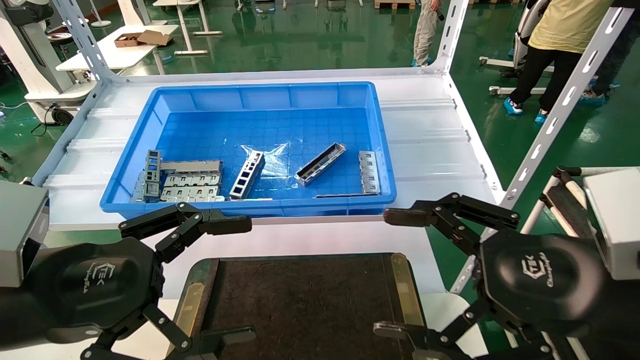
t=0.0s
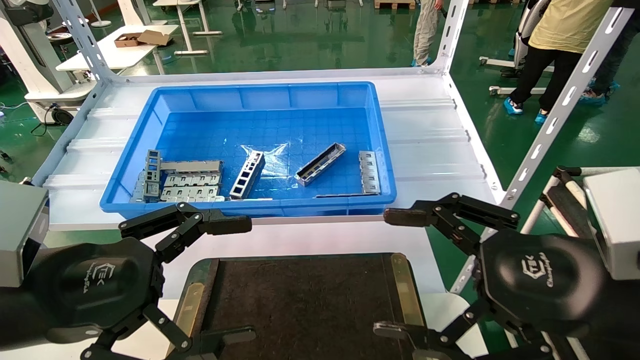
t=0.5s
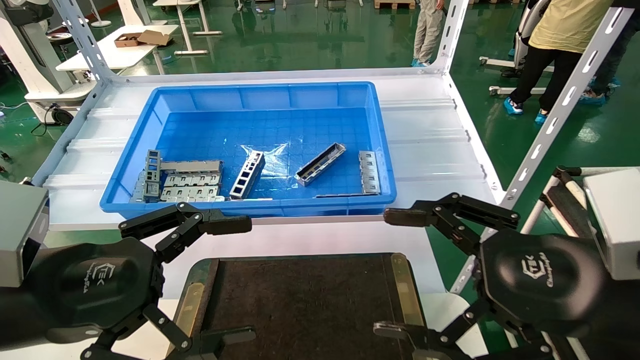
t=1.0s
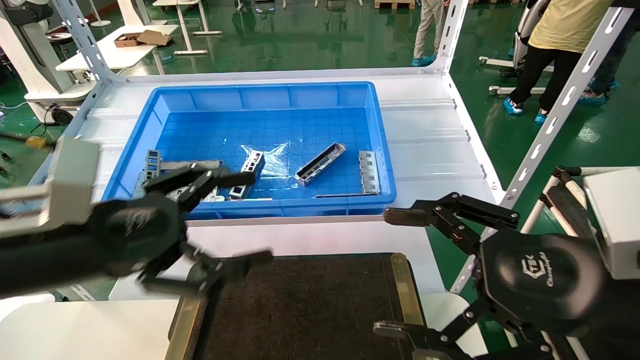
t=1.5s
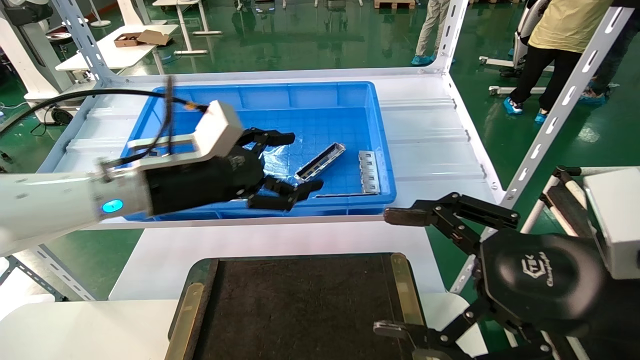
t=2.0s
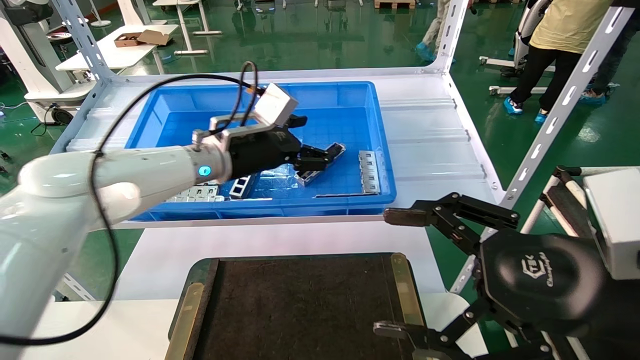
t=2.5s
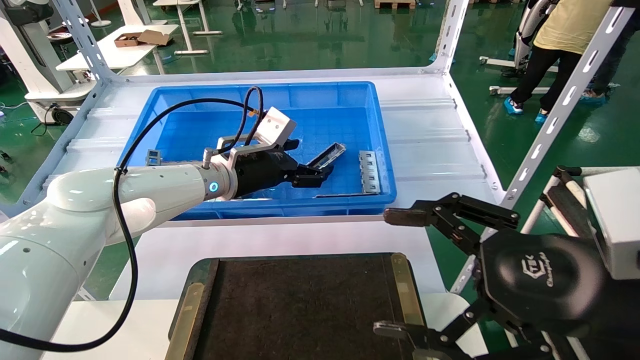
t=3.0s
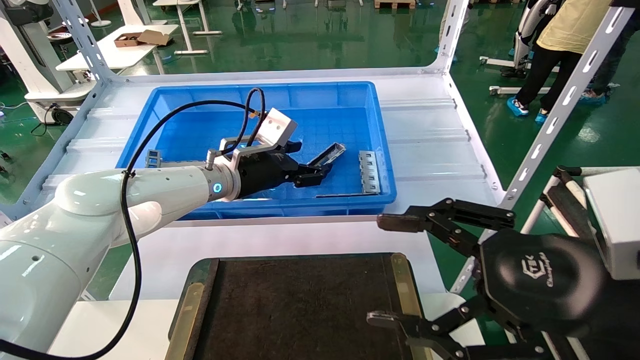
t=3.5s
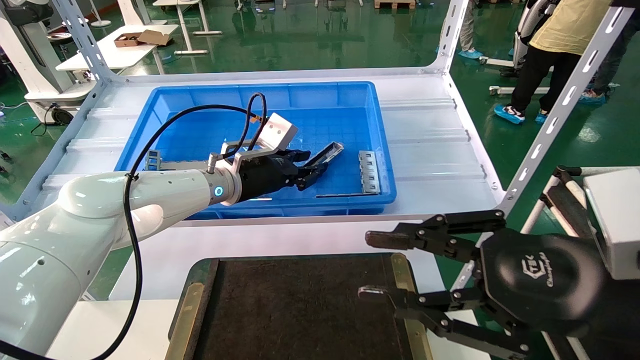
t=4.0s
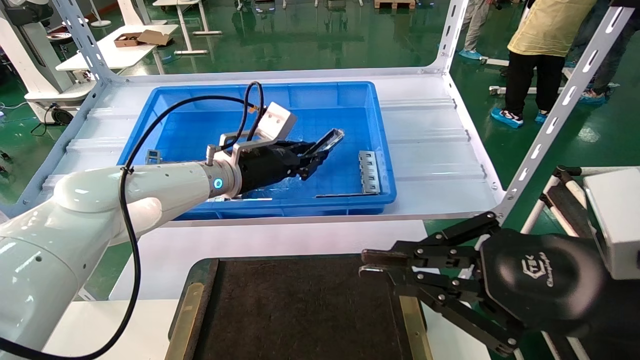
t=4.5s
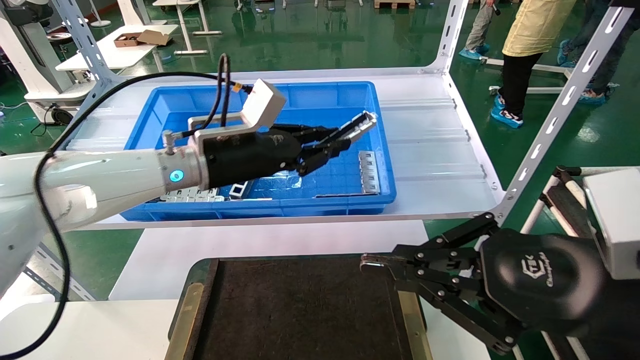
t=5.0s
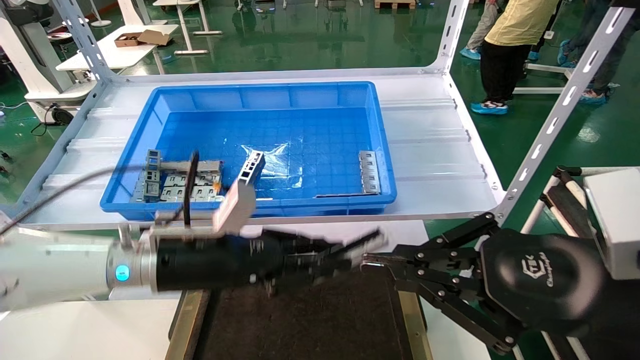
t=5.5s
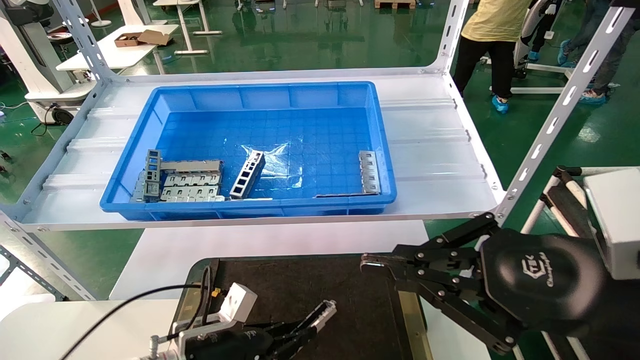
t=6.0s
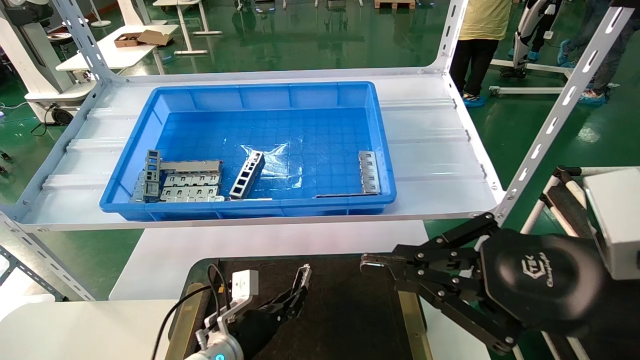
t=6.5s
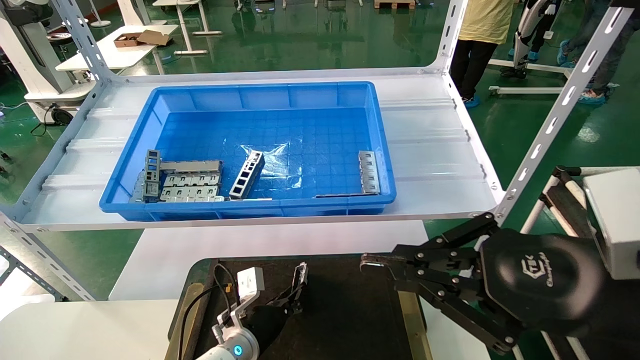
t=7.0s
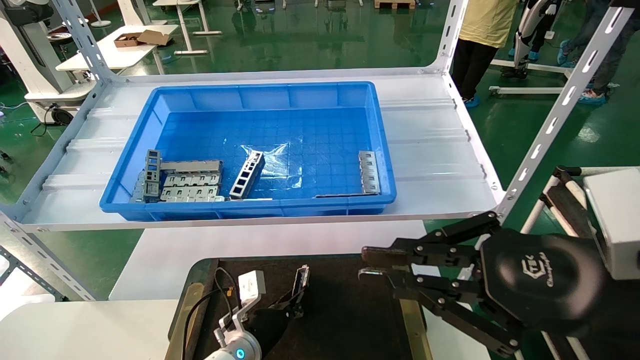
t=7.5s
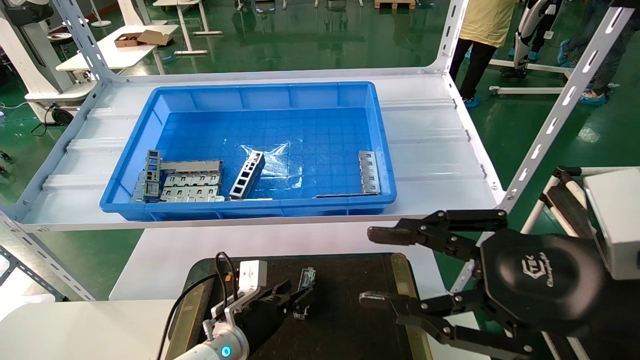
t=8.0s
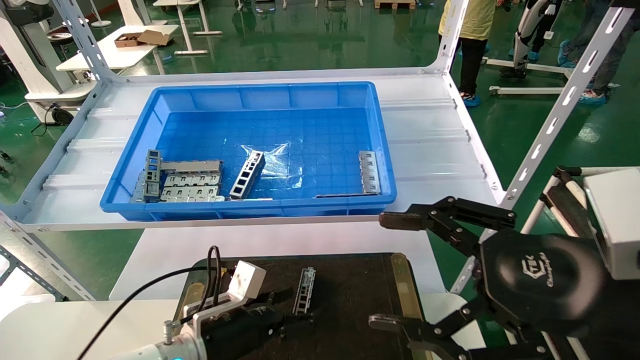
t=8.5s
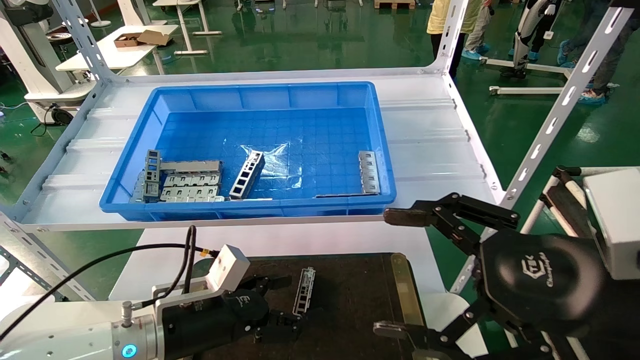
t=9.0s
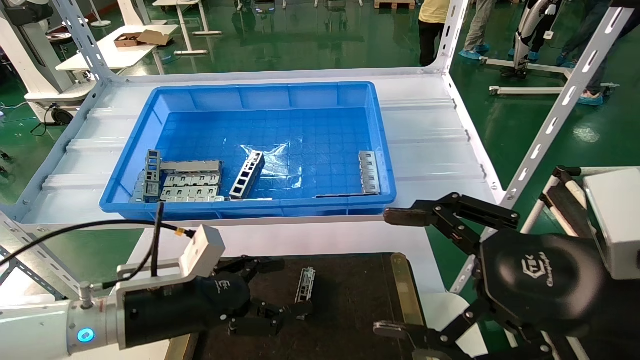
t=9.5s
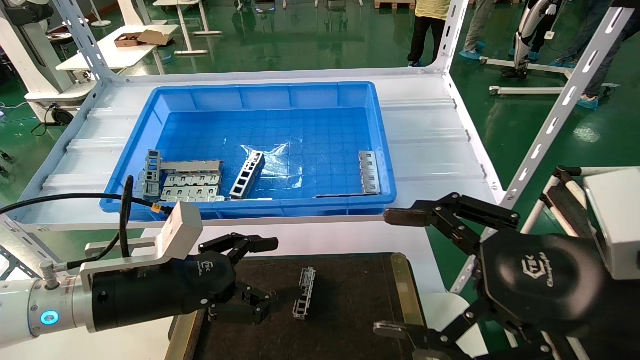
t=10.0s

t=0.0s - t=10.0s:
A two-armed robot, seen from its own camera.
Task of the whole recording: Grasp the part with one hand and place it on the black container.
Step, t=1.5s - t=4.0s: Pick up the front USB bracket from the feeding area.
Step, t=4.5s - t=7.5s: Place the front USB bracket into the box.
t=0.0s - t=2.0s: The left gripper travels forward by about 20 cm.
t=2.0s - t=4.0s: The left gripper heads forward and to the right, covering approximately 10 cm, and closes, while the right gripper closes its fingers.
t=4.0s - t=6.0s: The left gripper travels downward and backward by about 25 cm, and closes up; the right gripper closes up.
t=6.0s - t=8.0s: The left gripper opens its fingers.
t=8.0s - t=10.0s: The right gripper opens up. The left gripper heads upward, backward and to the left, covering about 25 cm, and opens its fingers.

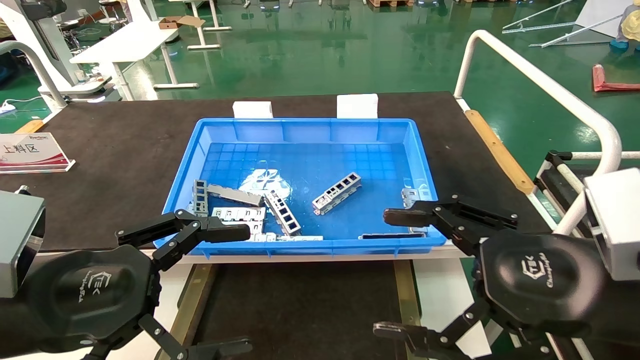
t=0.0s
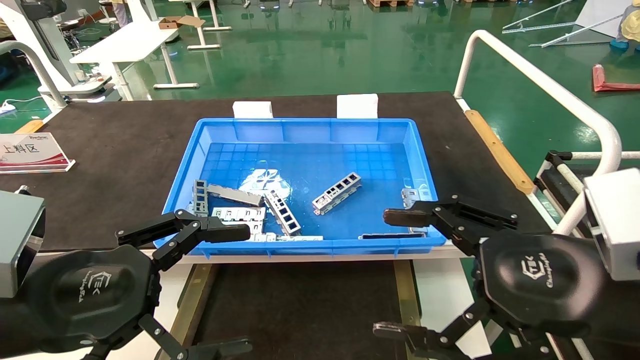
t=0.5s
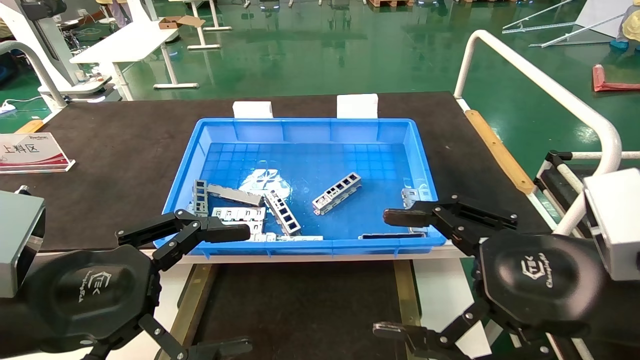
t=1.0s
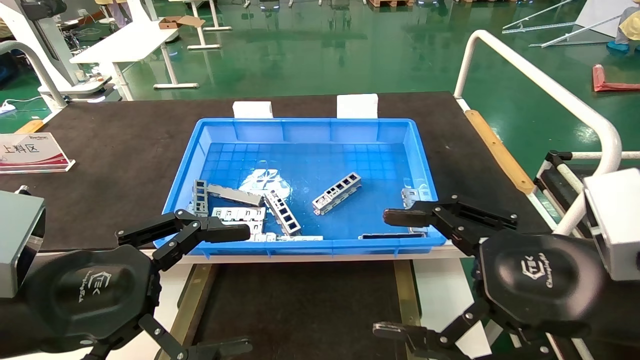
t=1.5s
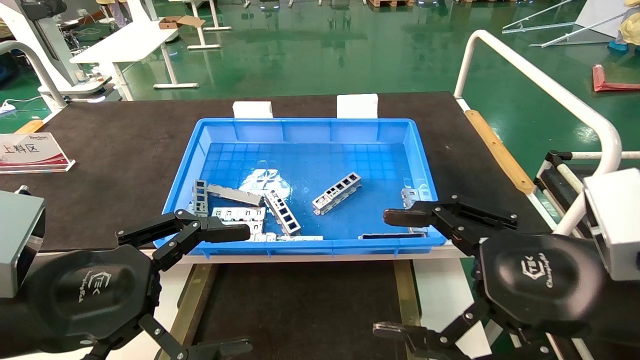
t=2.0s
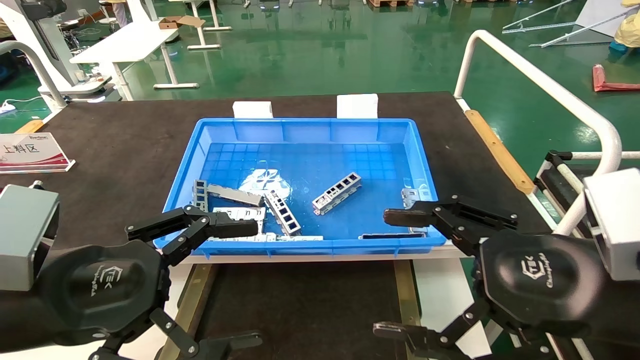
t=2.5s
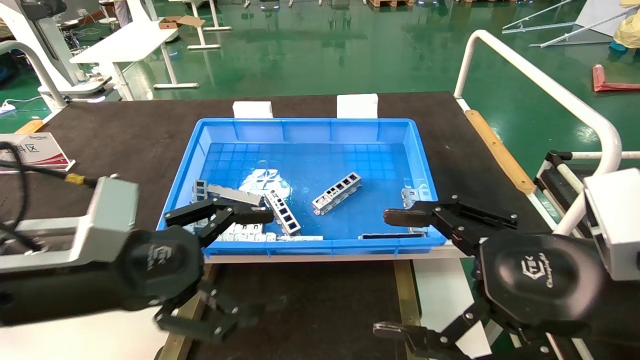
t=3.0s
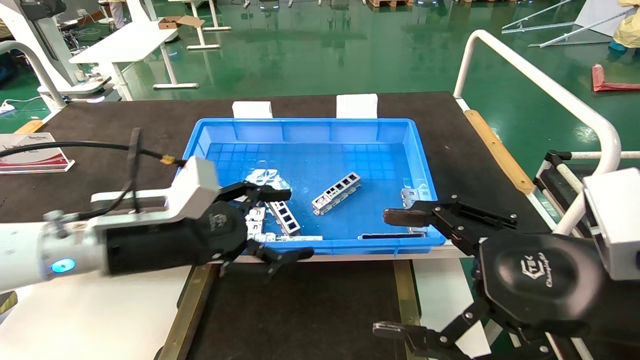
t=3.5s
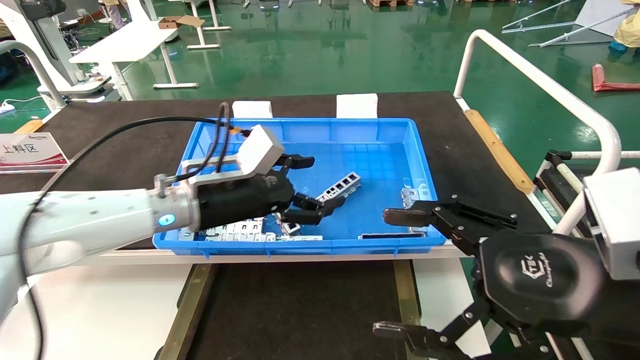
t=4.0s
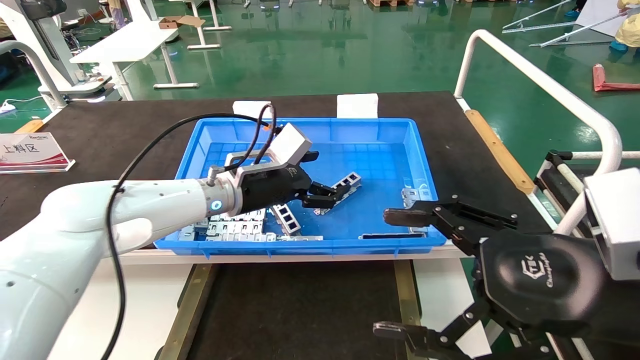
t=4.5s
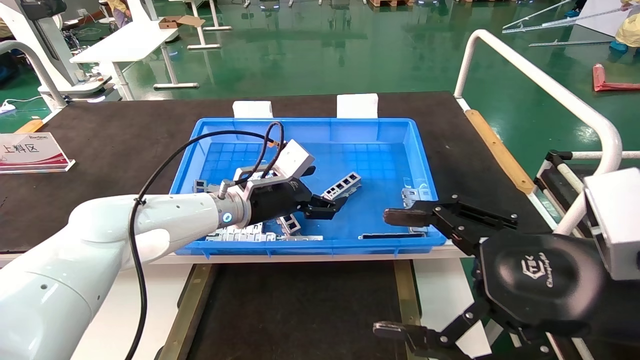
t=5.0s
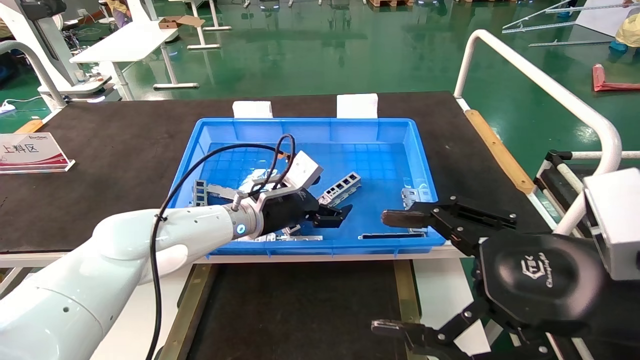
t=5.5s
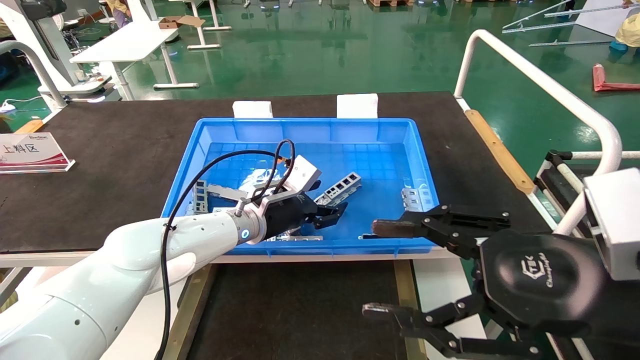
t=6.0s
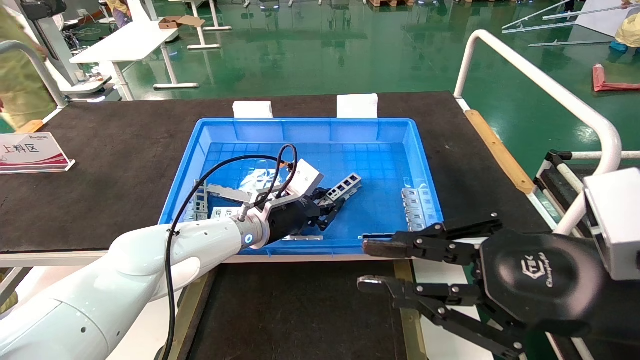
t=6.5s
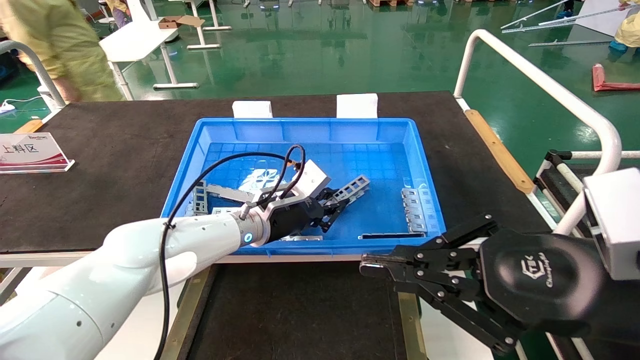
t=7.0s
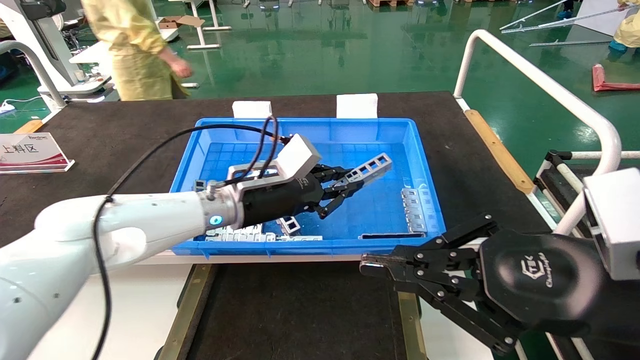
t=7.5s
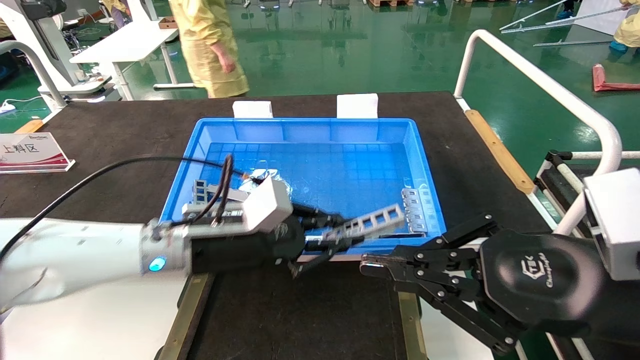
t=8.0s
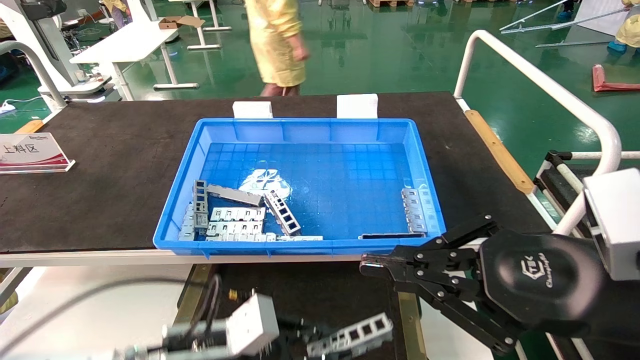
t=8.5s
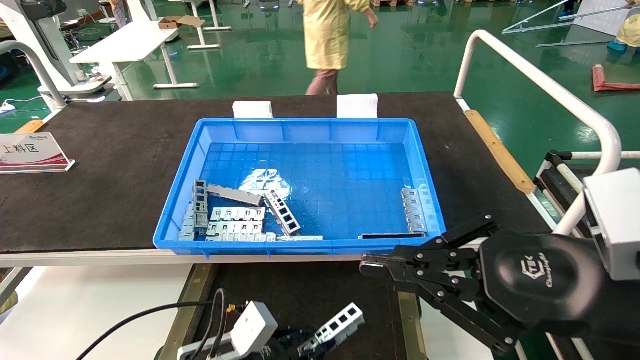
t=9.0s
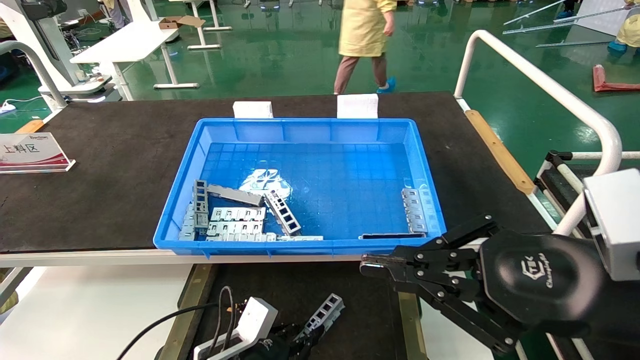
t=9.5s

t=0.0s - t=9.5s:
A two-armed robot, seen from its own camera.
Task of the whole recording: Grasp the part with one hand and place it on the black container.
Step, t=2.5s - t=7.0s: Pick up the front USB bracket from the feeding area.
t=0.0s - t=2.0s: Neither gripper changes place.
t=2.0s - t=4.0s: The left gripper heads forward and to the right, covering roughly 25 cm.
t=4.0s - t=5.5s: The left gripper heads forward, downward and to the right, covering roughly 10 cm.
t=5.5s - t=7.5s: The left gripper ends up approximately 5 cm from where it was, and closes its fingers, while the right gripper closes its fingers.
t=7.5s - t=9.5s: The left gripper travels downward and backward by about 25 cm.
